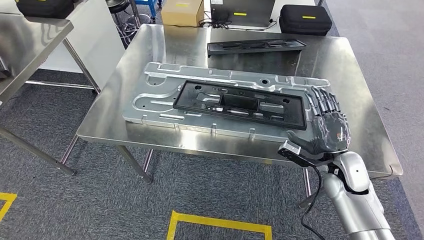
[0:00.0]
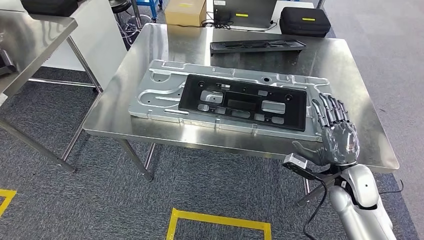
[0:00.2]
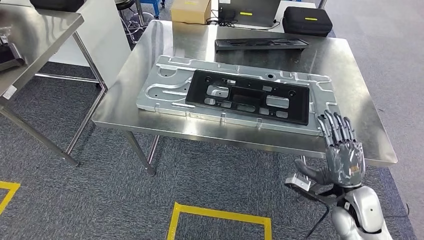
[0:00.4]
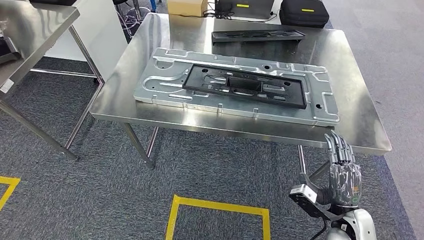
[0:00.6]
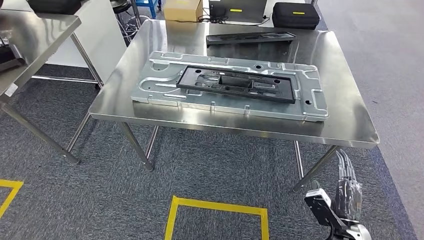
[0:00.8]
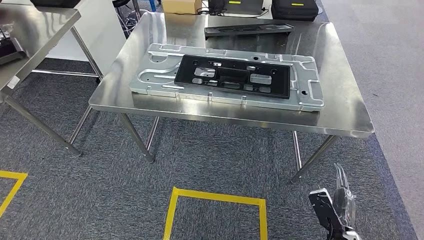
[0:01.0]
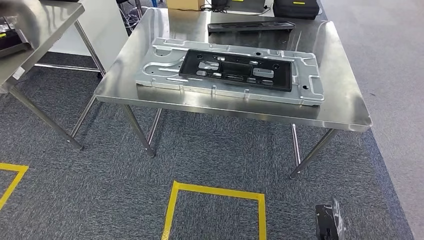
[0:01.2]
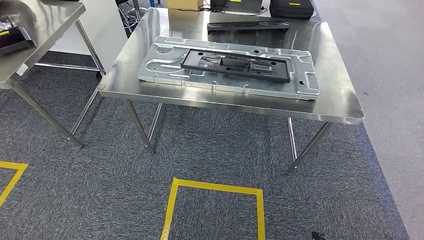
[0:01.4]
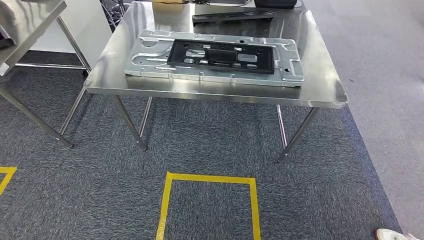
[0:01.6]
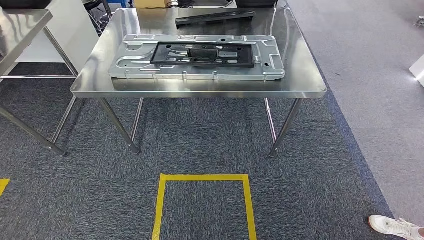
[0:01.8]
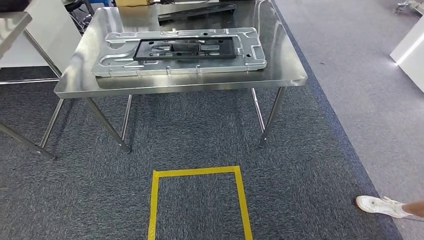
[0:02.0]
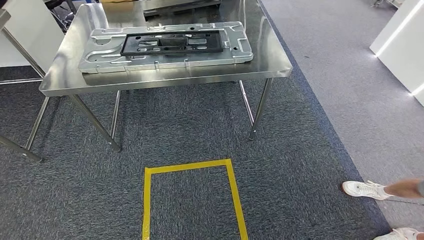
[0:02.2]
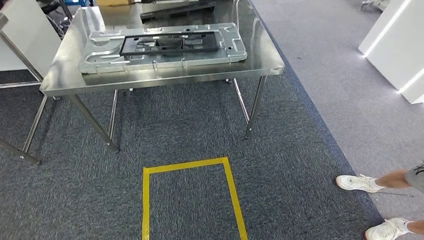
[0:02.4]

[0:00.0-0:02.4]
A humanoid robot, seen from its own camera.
Step, 0:00.0 to 0:02.4: Move to the initial position of the shelf.

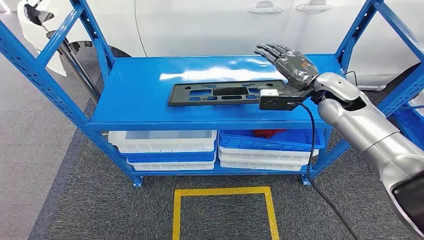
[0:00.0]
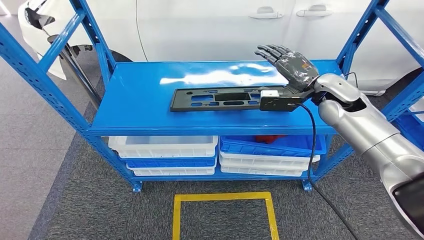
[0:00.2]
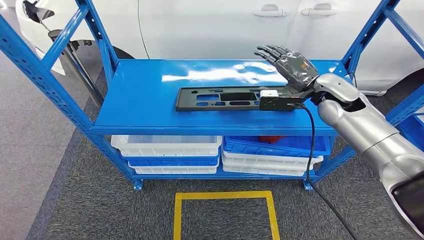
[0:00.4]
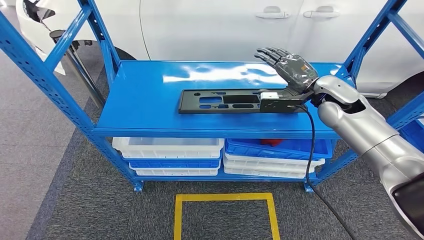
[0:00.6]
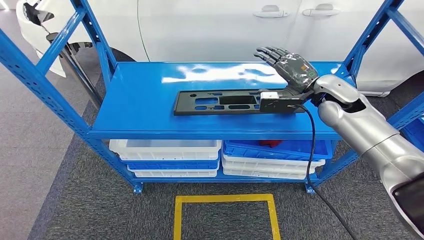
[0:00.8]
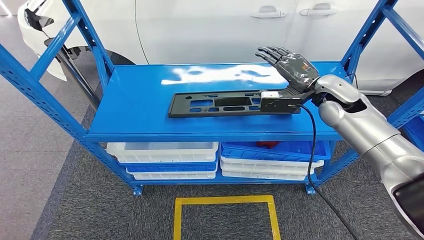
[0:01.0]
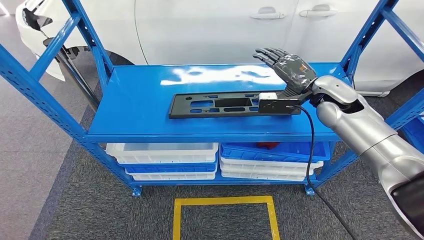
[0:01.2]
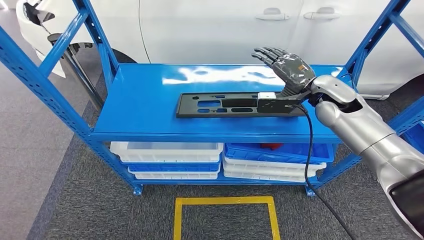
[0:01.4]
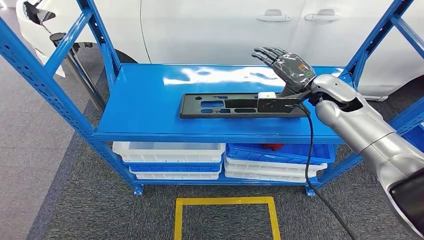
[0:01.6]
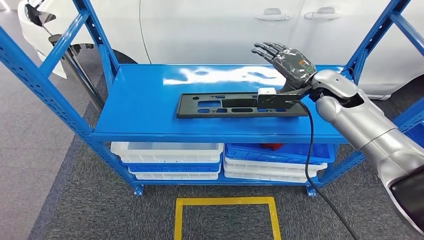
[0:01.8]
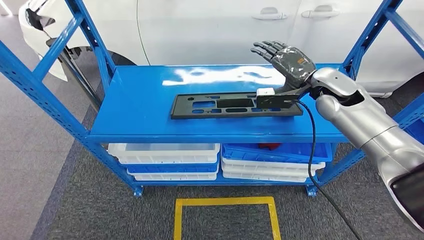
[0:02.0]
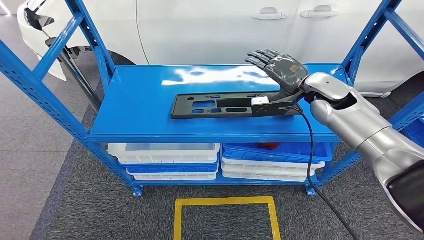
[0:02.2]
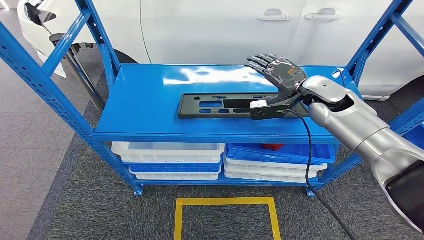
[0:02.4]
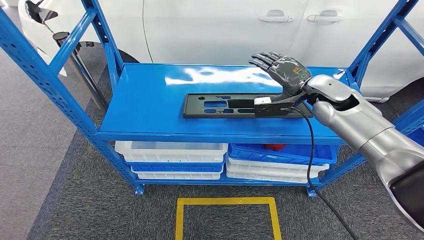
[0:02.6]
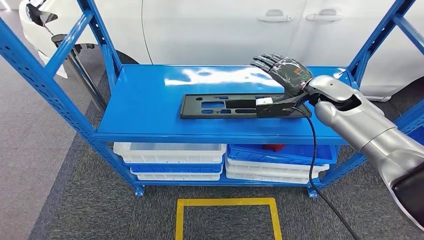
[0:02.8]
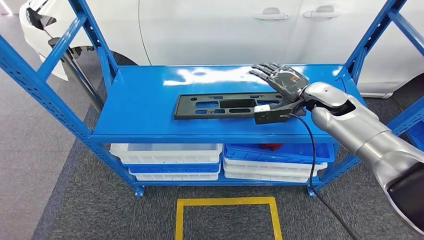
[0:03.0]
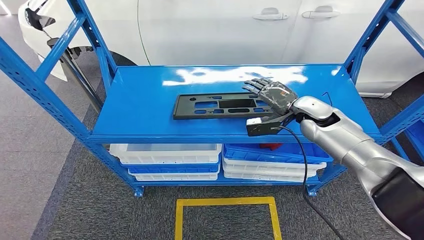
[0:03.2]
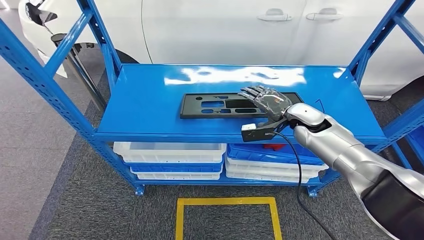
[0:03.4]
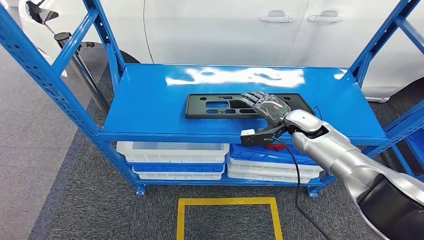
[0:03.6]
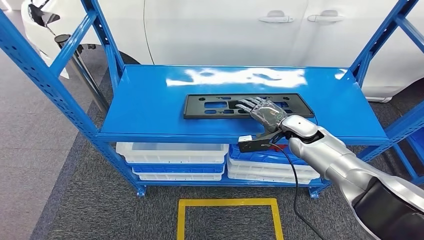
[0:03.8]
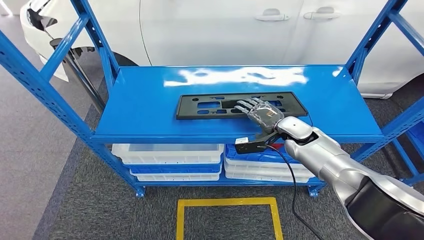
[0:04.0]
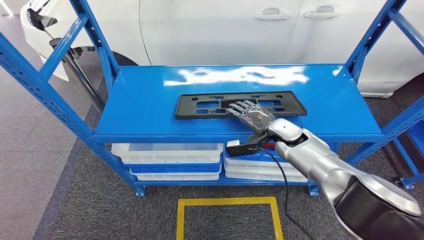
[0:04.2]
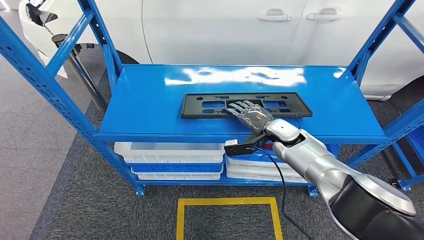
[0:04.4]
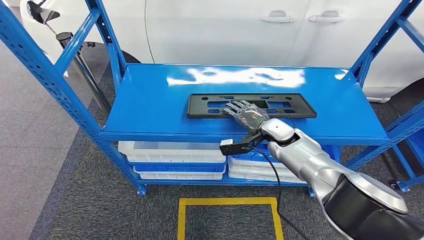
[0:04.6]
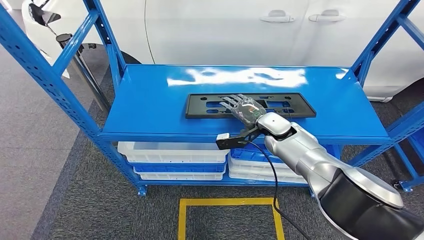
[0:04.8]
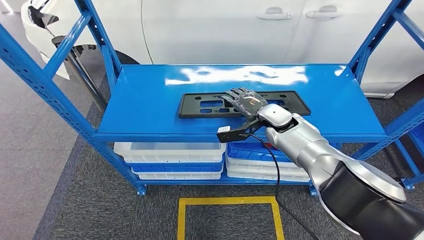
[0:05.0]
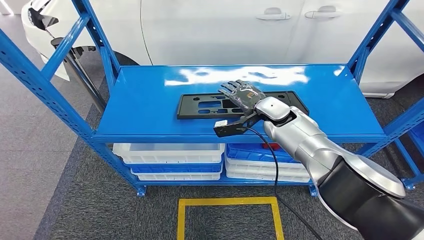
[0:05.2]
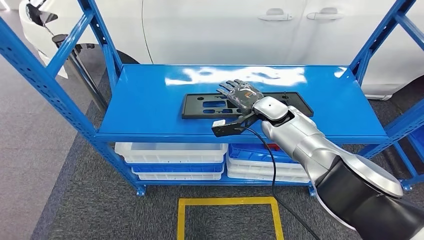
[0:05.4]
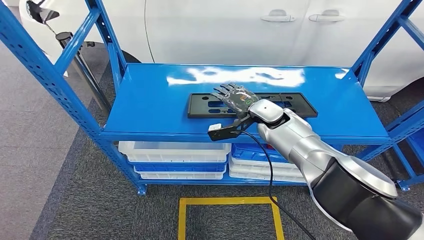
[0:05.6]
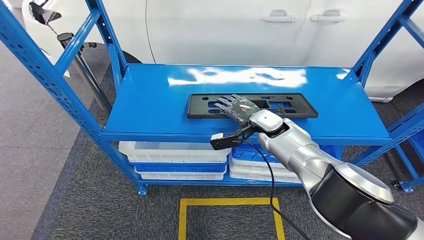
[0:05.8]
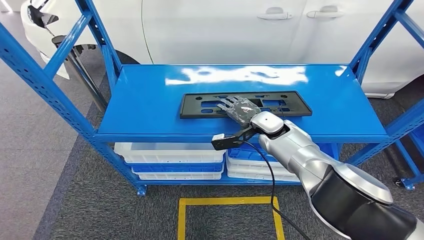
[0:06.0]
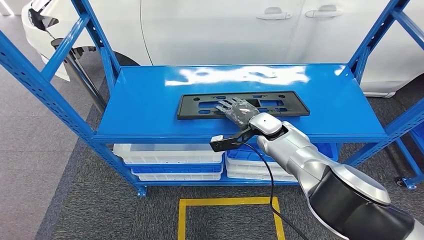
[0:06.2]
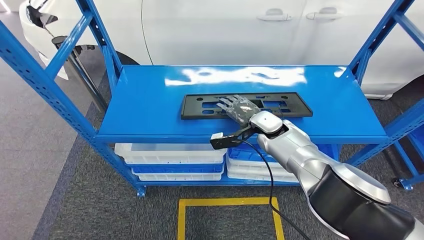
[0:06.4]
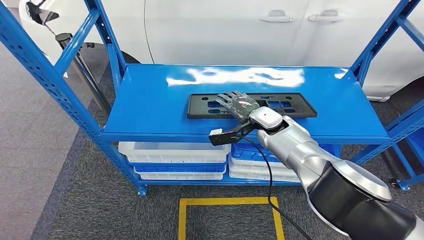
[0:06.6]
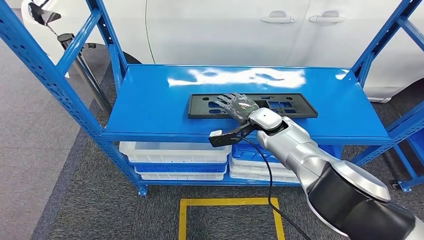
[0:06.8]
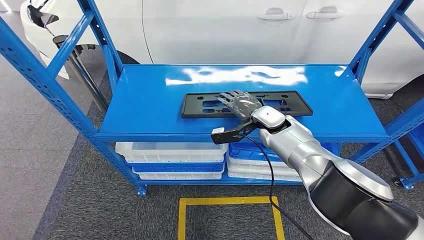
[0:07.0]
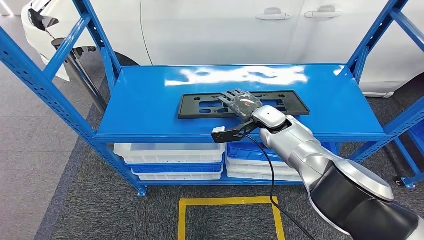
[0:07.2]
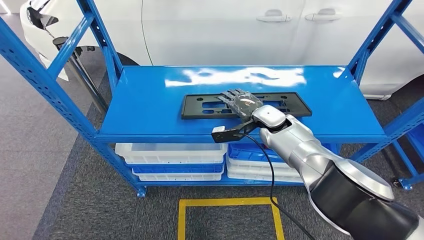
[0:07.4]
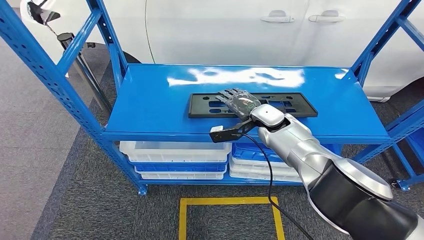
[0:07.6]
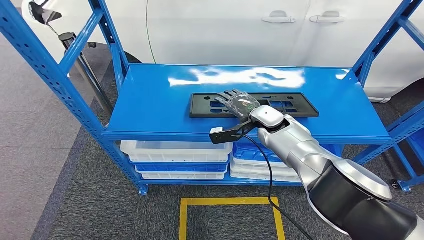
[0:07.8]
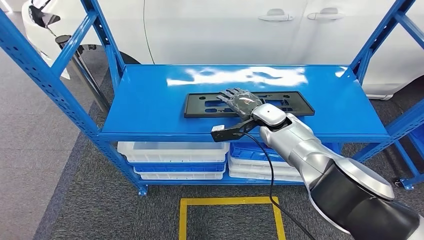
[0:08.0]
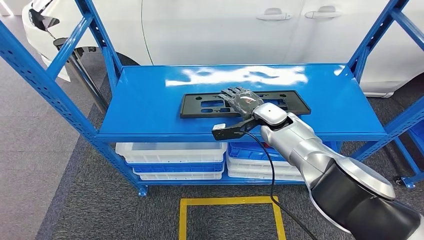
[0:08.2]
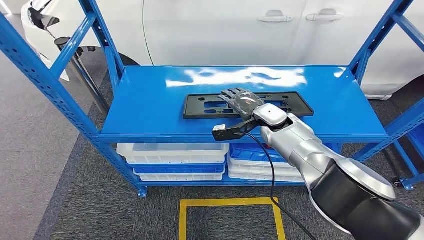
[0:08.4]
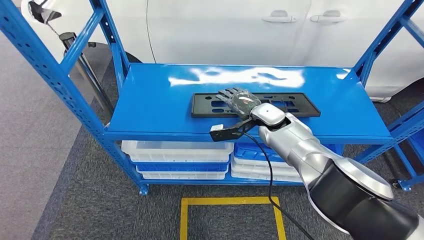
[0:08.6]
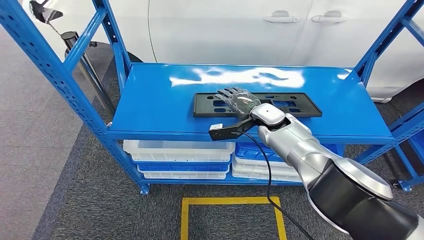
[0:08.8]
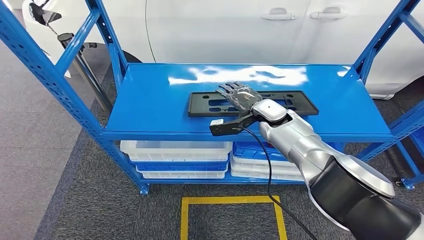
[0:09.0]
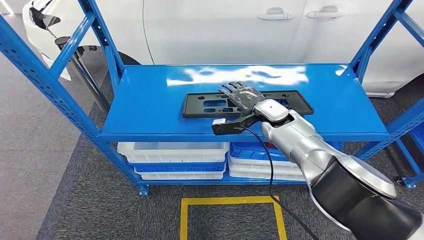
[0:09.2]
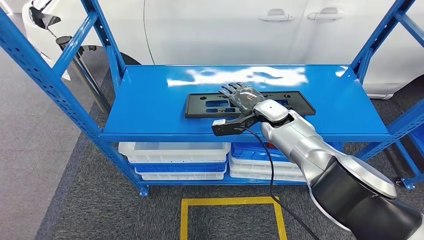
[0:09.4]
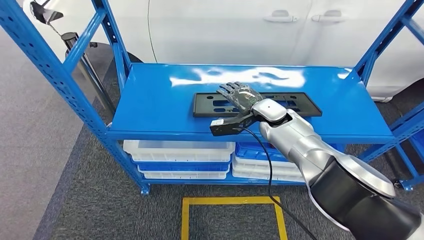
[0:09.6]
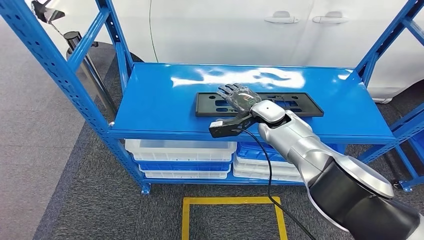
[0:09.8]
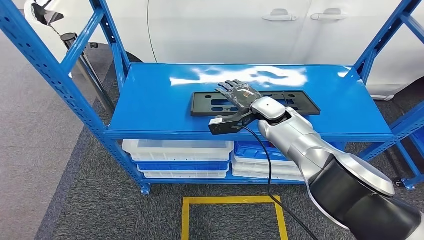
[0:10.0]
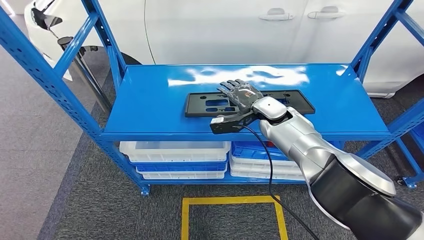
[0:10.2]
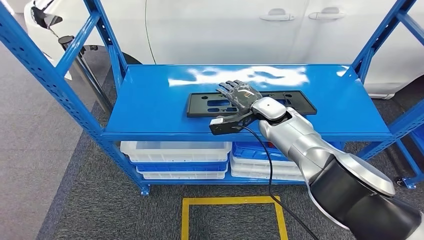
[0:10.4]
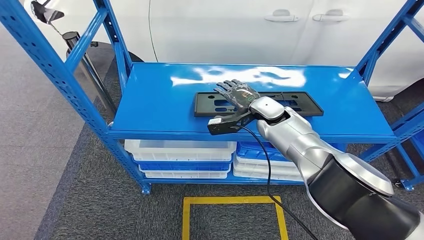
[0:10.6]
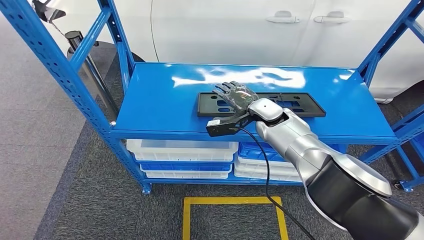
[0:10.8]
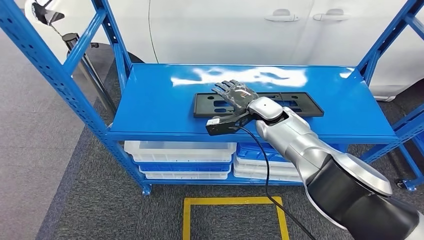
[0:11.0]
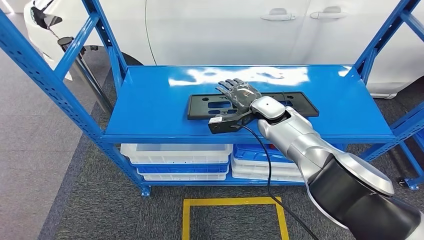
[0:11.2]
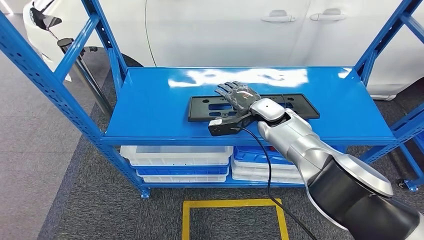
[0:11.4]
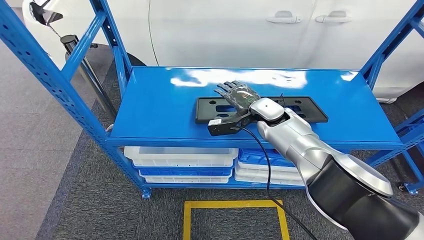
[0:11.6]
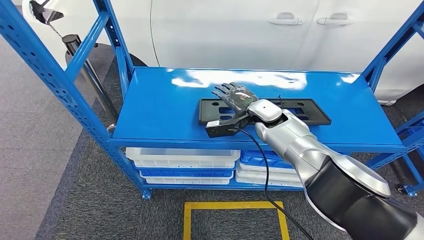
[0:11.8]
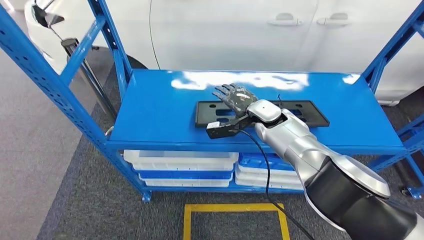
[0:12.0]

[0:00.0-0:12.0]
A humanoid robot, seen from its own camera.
0:01.6 to 0:03.0: The hands make only small movements.
0:07.6 to 0:09.0: Neither hand changes place.
0:09.0 to 0:10.4: The two hands keep their place.

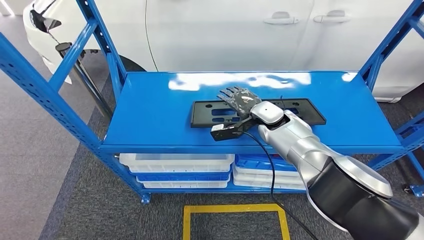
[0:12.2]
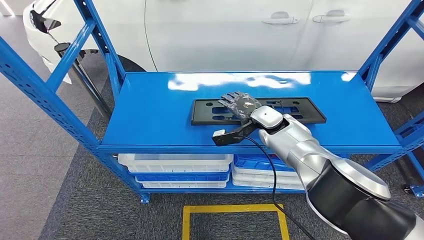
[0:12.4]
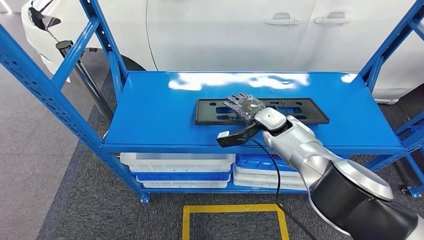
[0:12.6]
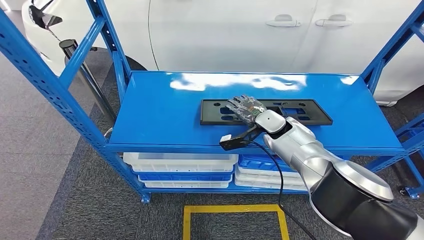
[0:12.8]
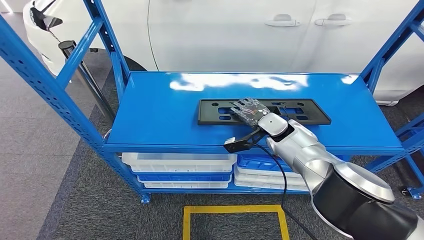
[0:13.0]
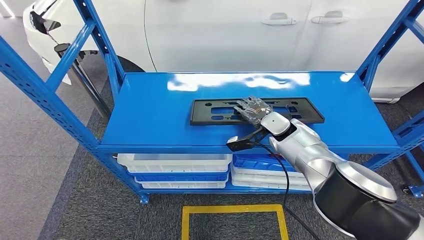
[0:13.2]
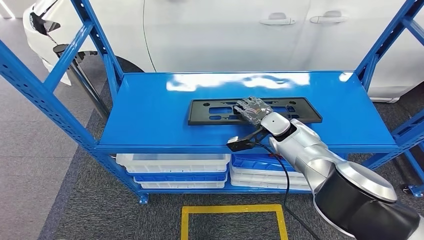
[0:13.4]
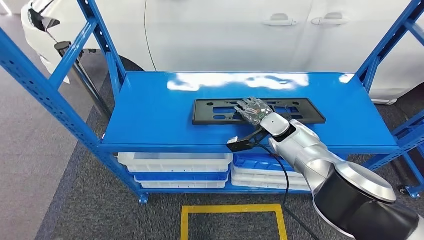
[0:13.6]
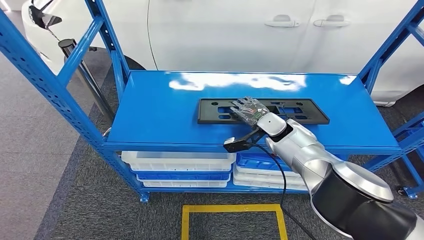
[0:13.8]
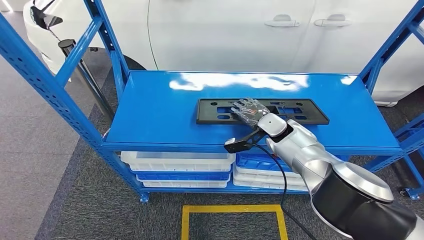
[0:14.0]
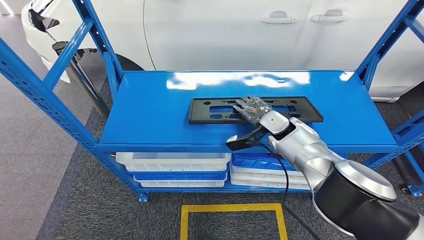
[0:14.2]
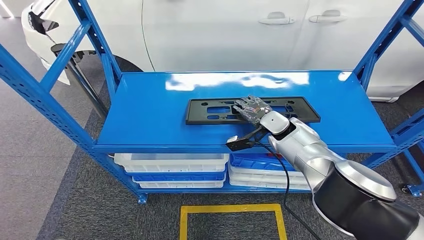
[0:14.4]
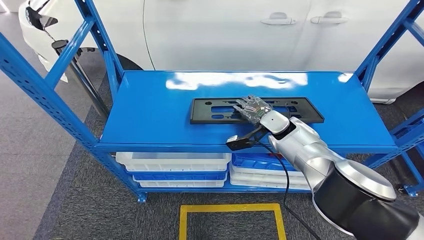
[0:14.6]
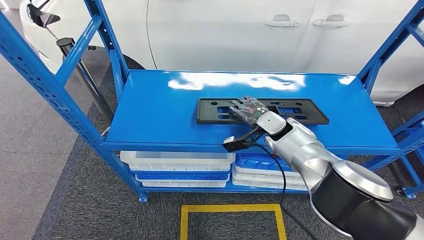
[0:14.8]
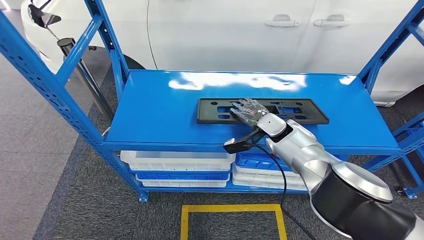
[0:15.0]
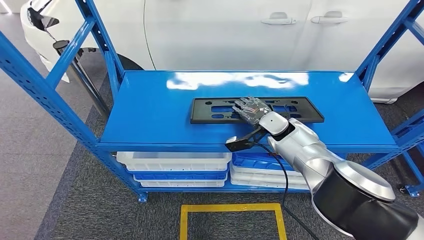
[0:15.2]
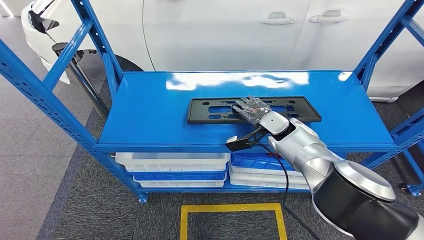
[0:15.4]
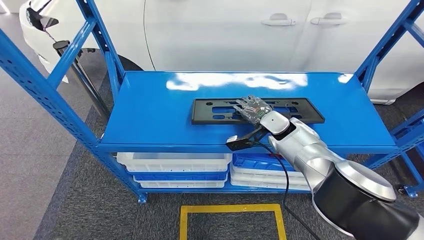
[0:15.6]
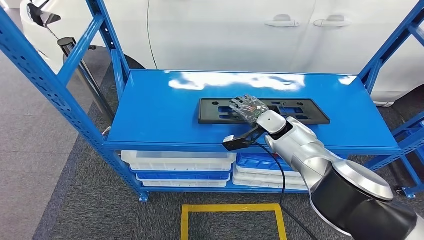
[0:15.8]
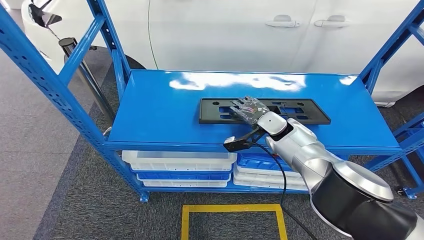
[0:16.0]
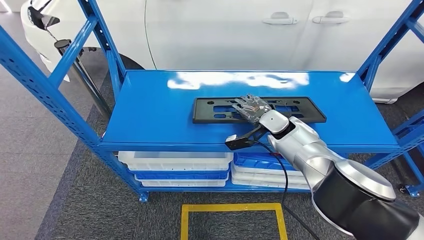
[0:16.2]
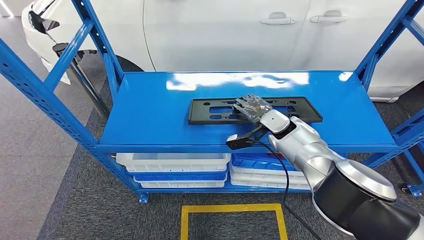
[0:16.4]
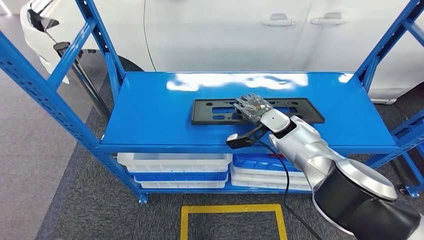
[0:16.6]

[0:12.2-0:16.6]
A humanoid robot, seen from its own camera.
0:12.2 to 0:13.6: The right hand shifts by approximately 5 cm.
0:13.6 to 0:16.6: Neither hand changes place.
